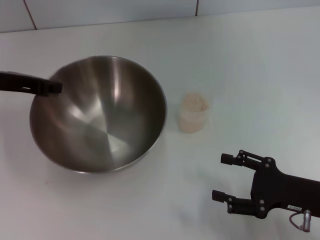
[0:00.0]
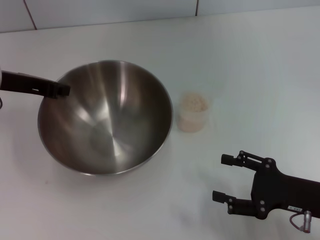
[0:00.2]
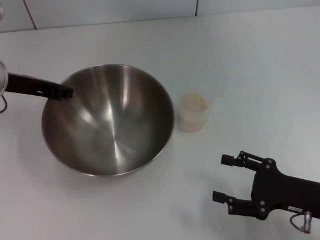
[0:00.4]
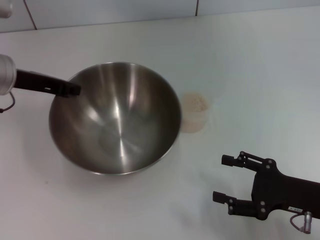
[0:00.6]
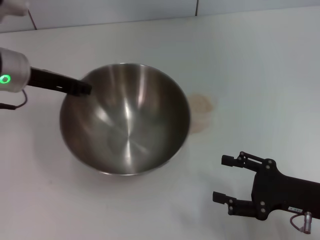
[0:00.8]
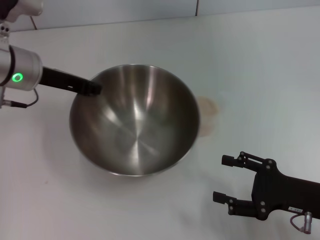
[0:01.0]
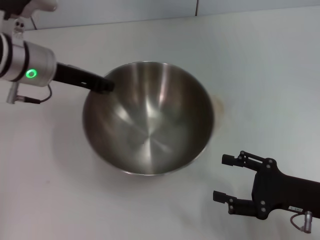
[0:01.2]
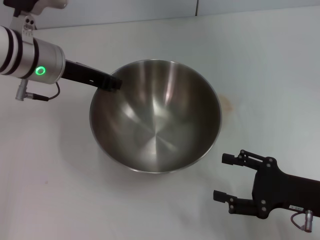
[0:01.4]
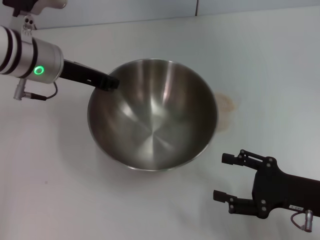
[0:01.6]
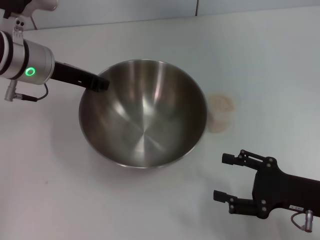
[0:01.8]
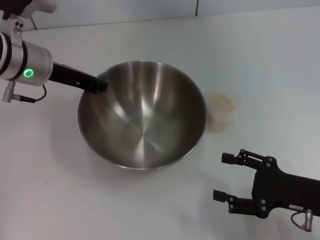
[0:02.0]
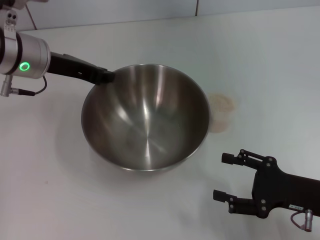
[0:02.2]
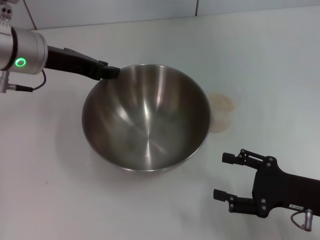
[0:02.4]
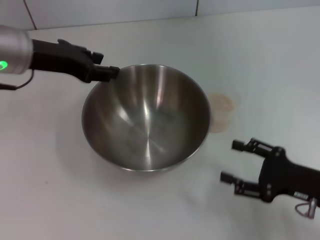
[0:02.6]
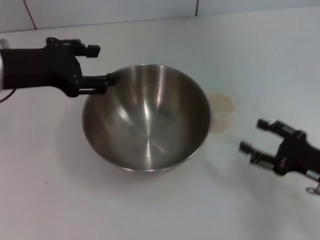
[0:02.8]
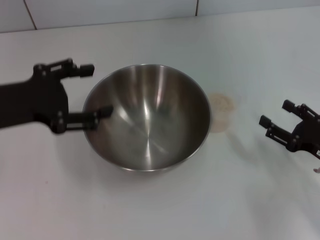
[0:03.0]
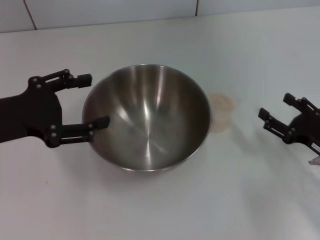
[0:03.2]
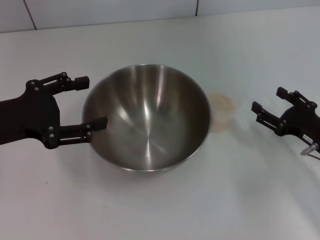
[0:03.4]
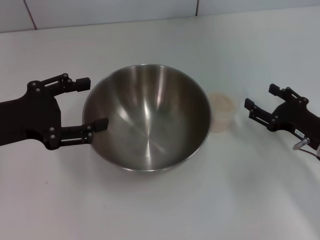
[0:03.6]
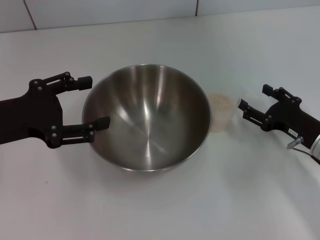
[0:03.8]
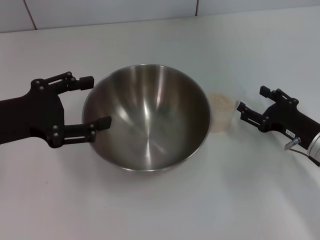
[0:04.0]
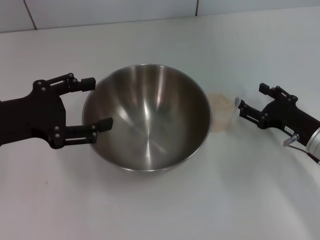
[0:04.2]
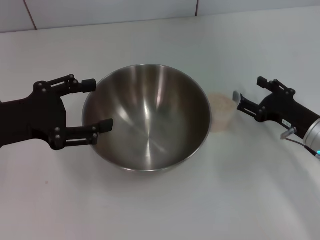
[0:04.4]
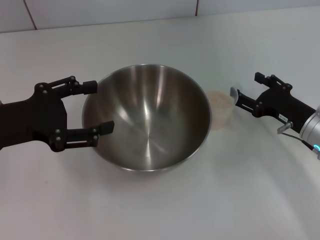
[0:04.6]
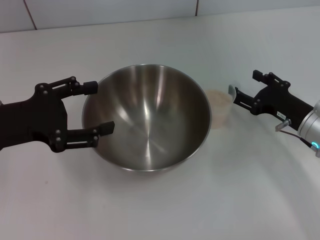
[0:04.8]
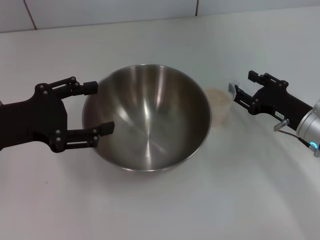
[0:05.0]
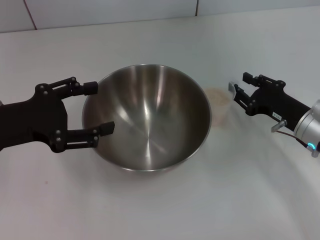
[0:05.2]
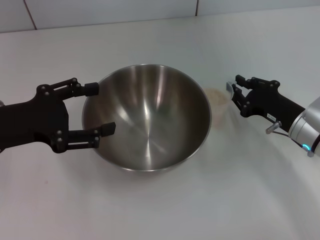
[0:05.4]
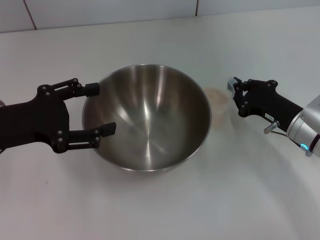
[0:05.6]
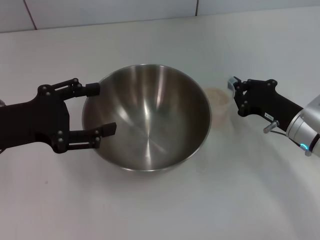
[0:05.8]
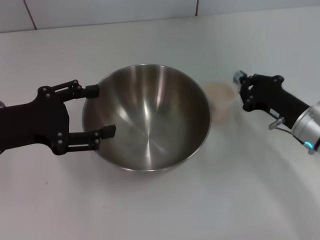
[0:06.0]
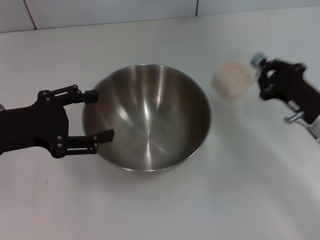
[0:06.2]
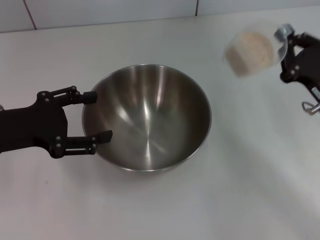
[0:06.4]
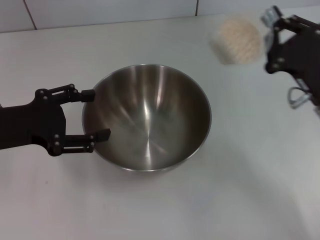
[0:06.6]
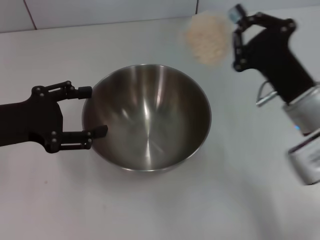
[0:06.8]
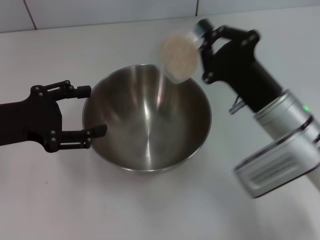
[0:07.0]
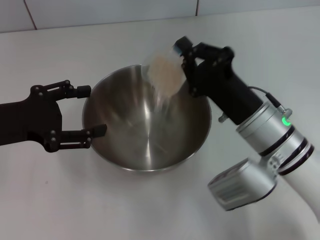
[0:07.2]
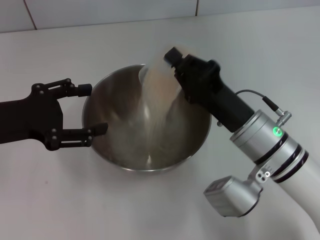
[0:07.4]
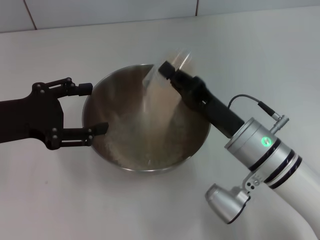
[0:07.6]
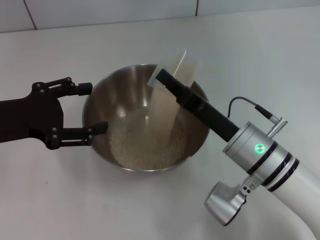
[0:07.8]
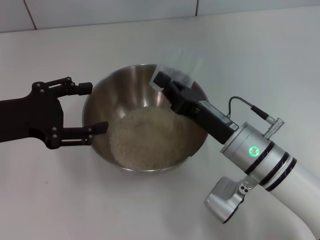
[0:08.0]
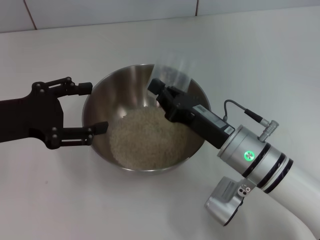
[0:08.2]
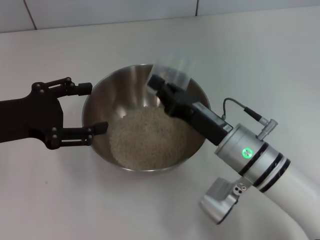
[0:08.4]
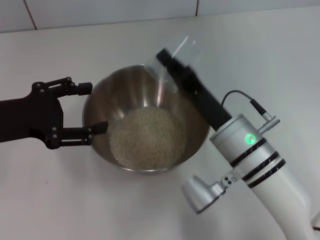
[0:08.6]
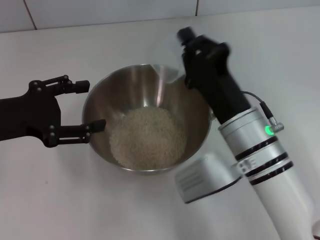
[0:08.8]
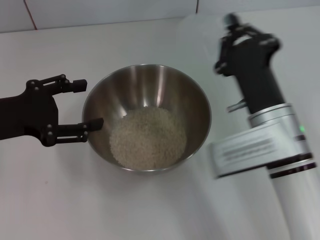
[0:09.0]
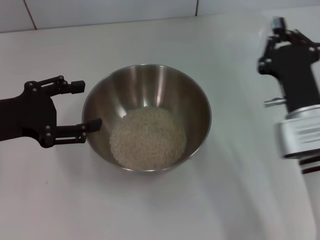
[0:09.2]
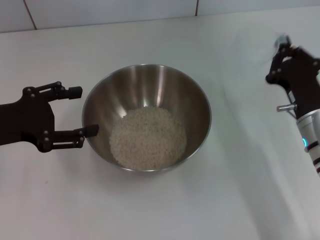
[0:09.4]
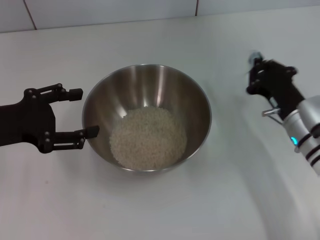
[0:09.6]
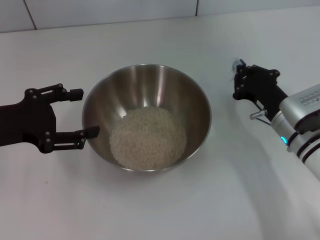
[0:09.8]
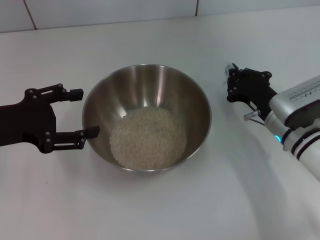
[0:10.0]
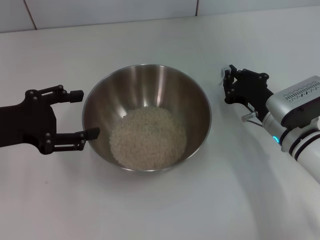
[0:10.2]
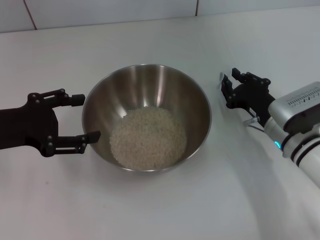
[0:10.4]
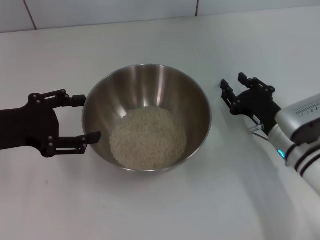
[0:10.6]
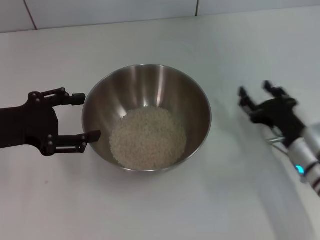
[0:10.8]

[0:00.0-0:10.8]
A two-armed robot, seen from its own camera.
Task of the whole recording: Place the bowl in the middle of the table with one hand and pour the rice from the grain cup into it with the other hand.
Step, 0:00.0 to 0:02.6: Place the bowl in the center of view with the left gripper.
Step, 0:02.8 to 0:06.2: Pick up the cup with rice in it with the right gripper.
Step, 0:06.4 to 0:09.0: Pour the rice from the cup into the bowl with the right gripper.
0:00.0 to 0:01.6: The left gripper goes roughly 10 cm to the right.
0:01.6 to 0:03.0: The right gripper ends up roughly 5 cm from where it was. Meanwhile the left gripper heads backward and to the left, covering some 15 cm, and opens up.
0:03.0 to 0:04.6: The right gripper shifts approximately 10 cm forward.
0:04.6 to 0:06.2: The right gripper closes up.
0:06.2 to 0:07.8: The right gripper moves to the left, some 15 cm.
0:07.8 to 0:09.2: The right gripper heads to the right, covering approximately 5 cm.
0:09.2 to 0:10.8: The right gripper heads downward, covering approximately 5 cm, and opens.

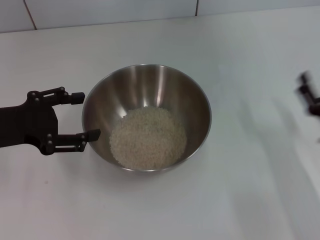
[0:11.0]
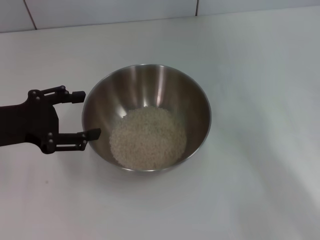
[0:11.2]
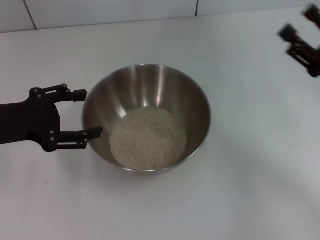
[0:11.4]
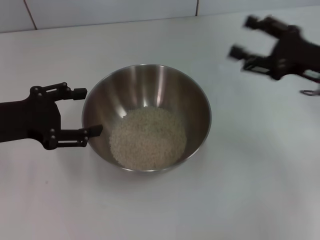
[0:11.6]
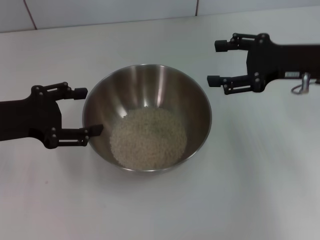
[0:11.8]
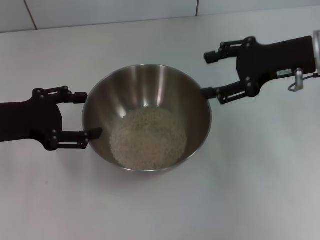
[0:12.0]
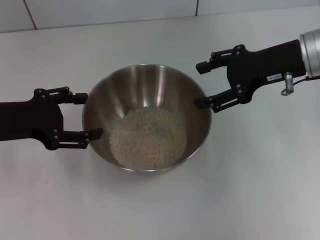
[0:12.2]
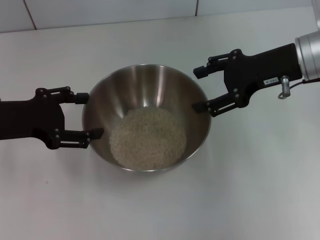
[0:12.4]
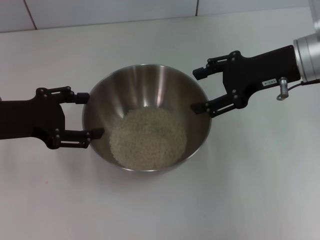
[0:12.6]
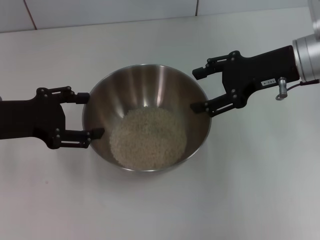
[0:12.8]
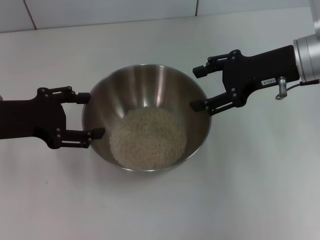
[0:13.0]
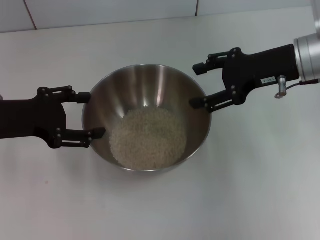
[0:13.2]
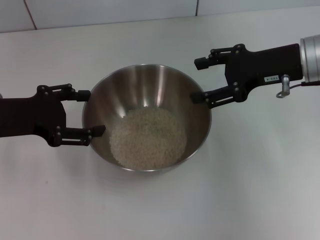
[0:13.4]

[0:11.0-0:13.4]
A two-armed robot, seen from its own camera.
Task of the whole recording: Place the bowl in the middle of the table with one hand and pour the rice from the grain cup into it with the other hand.
0:11.0 to 0:12.2: The right gripper shifts roughly 20 cm upward and forward.
0:12.2 to 0:13.4: The grippers stay close to where they were, moving slightly.
